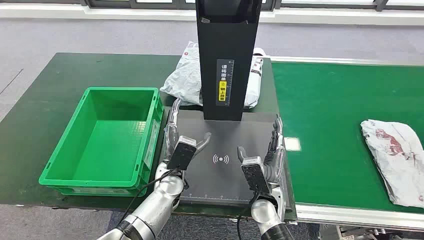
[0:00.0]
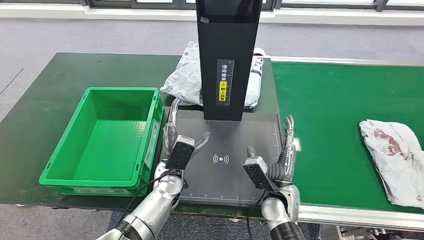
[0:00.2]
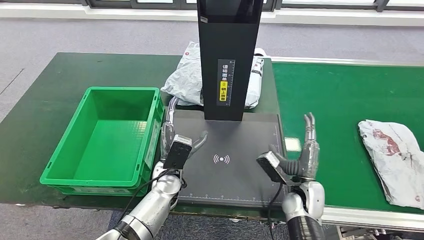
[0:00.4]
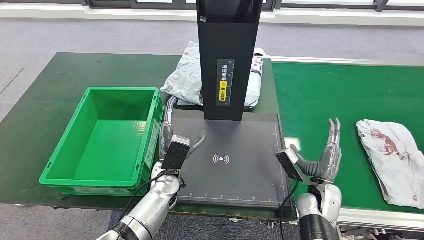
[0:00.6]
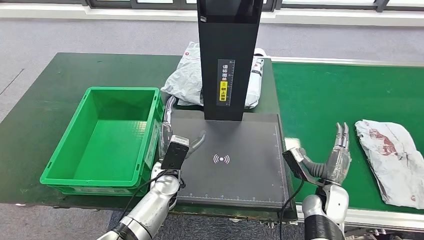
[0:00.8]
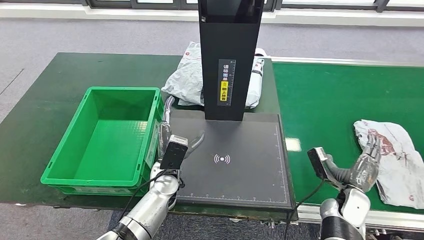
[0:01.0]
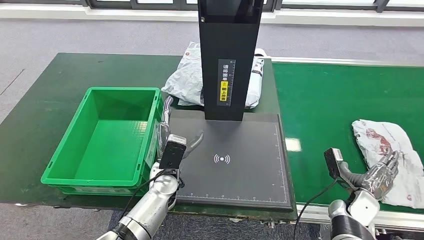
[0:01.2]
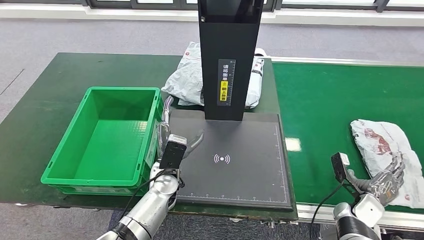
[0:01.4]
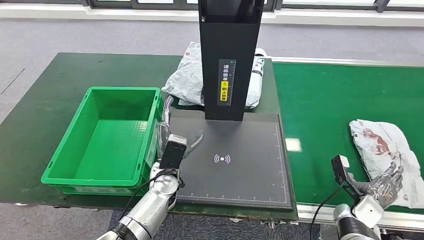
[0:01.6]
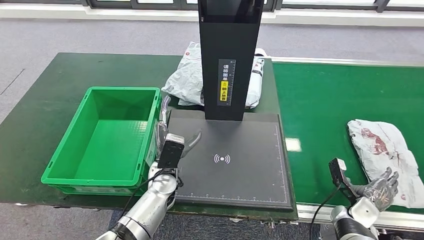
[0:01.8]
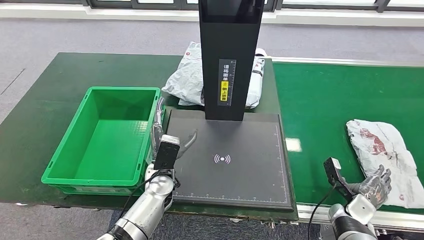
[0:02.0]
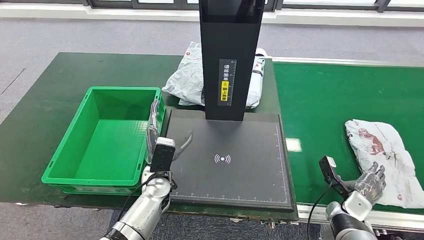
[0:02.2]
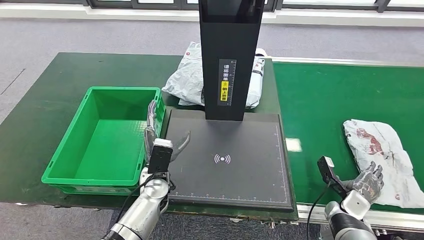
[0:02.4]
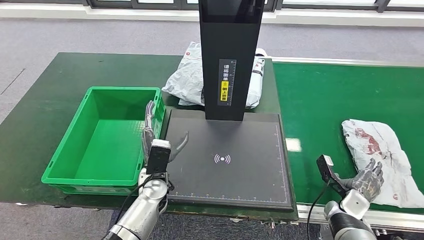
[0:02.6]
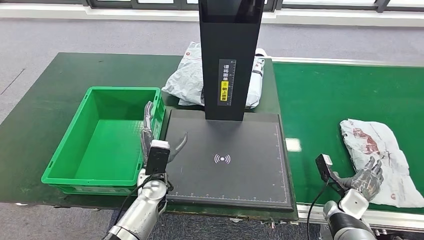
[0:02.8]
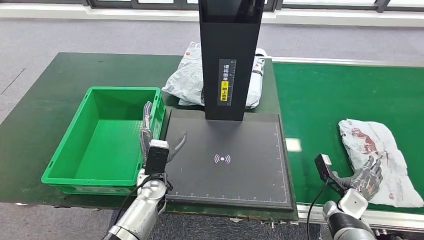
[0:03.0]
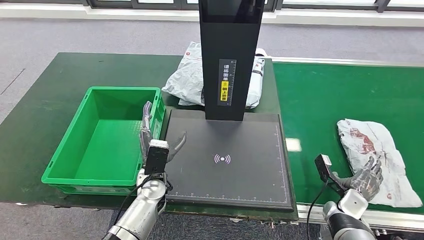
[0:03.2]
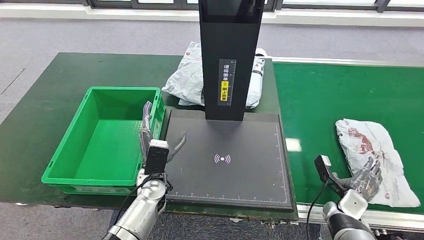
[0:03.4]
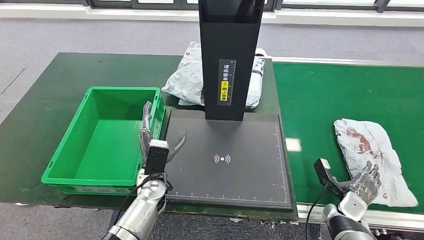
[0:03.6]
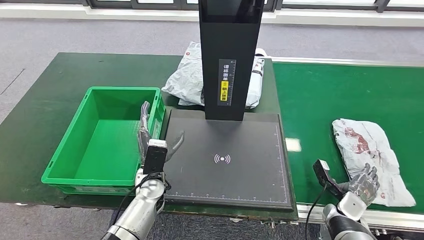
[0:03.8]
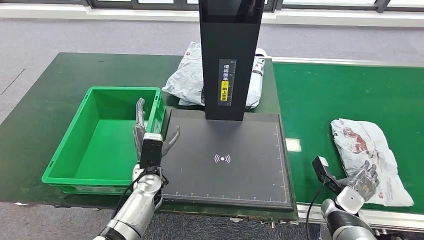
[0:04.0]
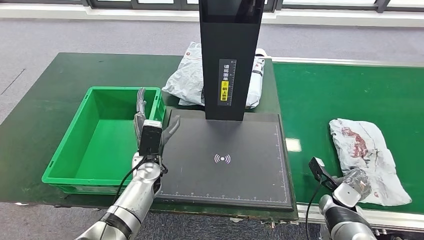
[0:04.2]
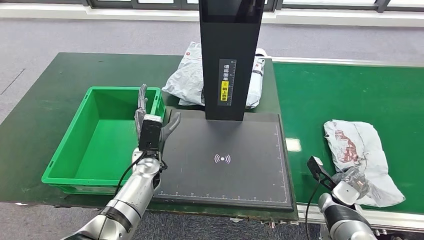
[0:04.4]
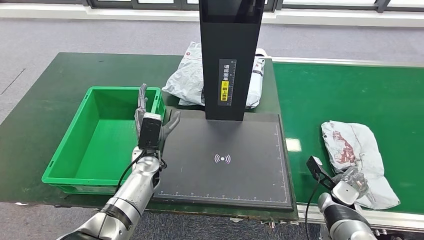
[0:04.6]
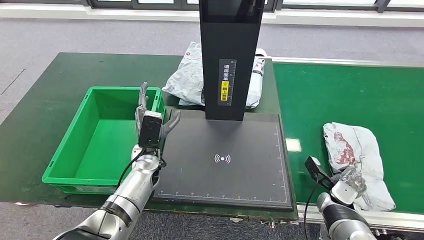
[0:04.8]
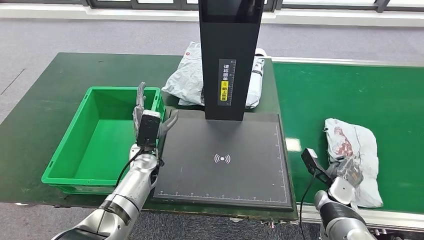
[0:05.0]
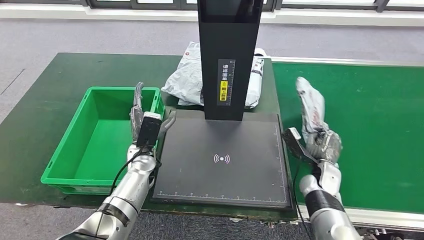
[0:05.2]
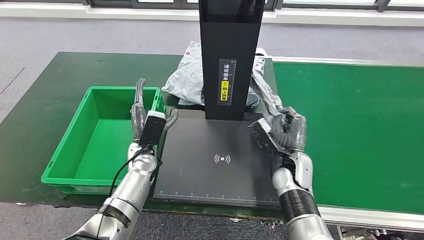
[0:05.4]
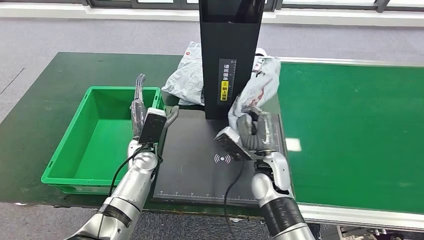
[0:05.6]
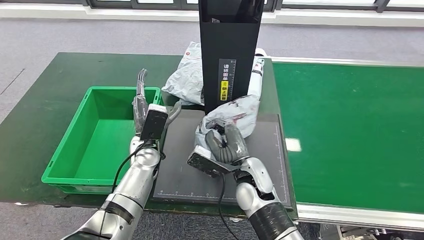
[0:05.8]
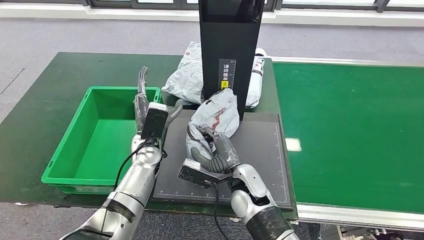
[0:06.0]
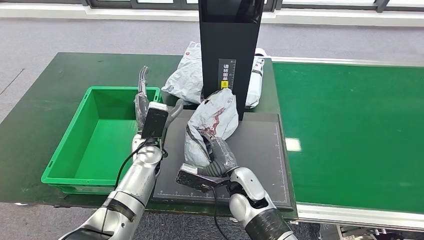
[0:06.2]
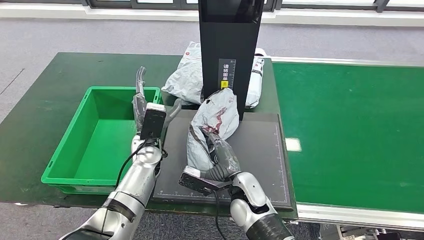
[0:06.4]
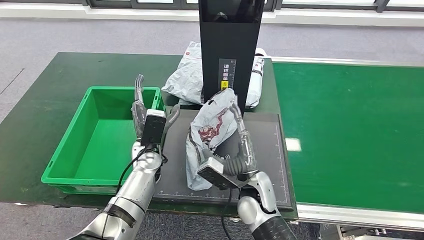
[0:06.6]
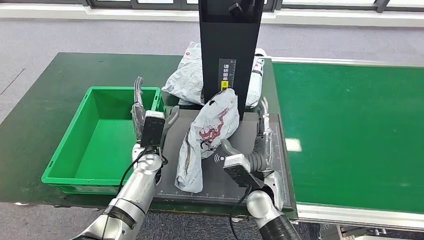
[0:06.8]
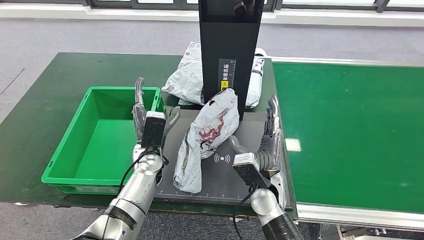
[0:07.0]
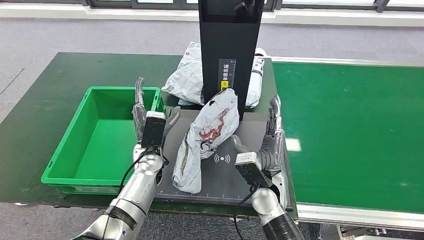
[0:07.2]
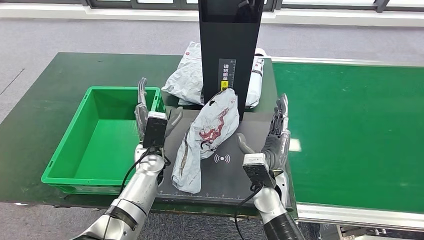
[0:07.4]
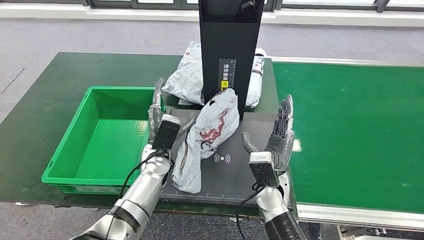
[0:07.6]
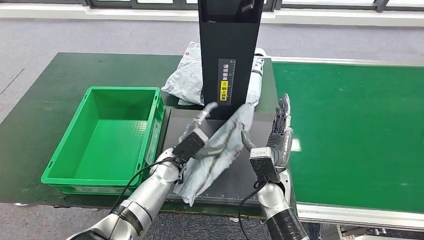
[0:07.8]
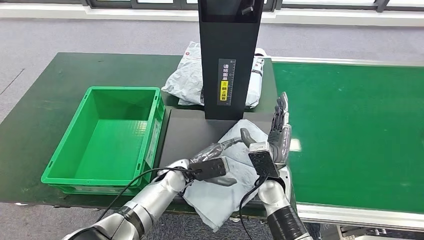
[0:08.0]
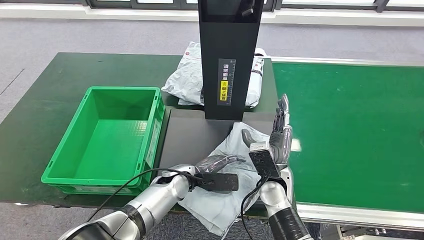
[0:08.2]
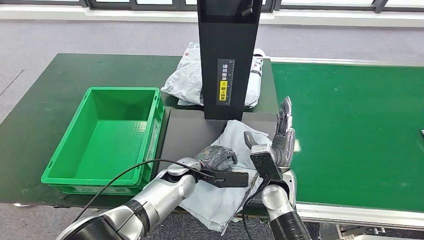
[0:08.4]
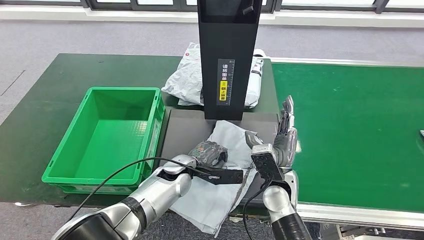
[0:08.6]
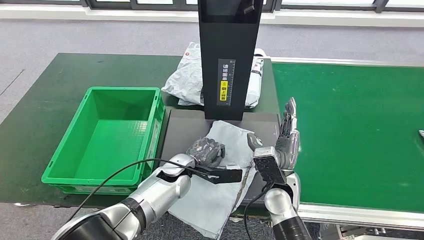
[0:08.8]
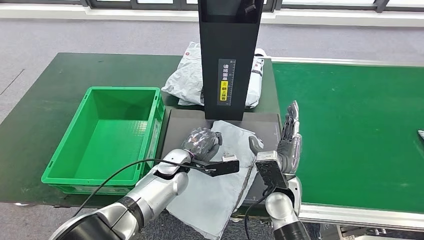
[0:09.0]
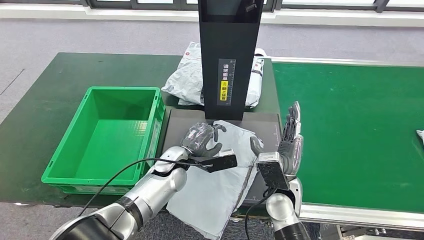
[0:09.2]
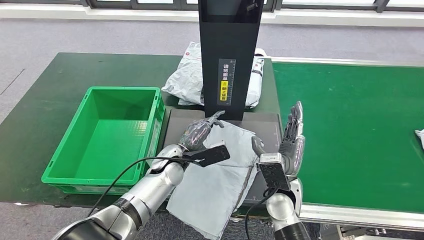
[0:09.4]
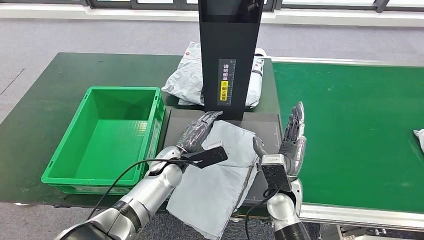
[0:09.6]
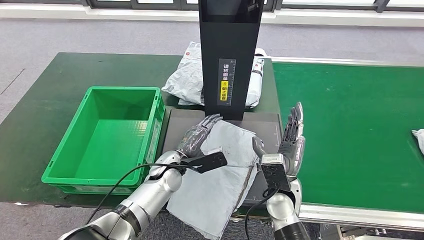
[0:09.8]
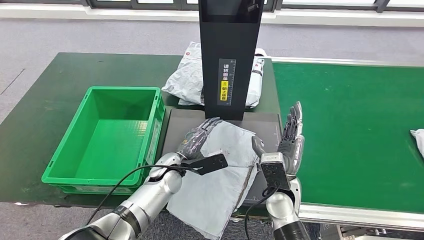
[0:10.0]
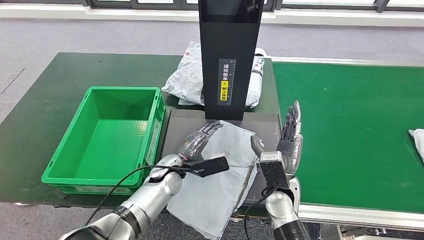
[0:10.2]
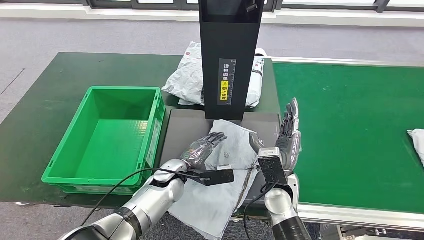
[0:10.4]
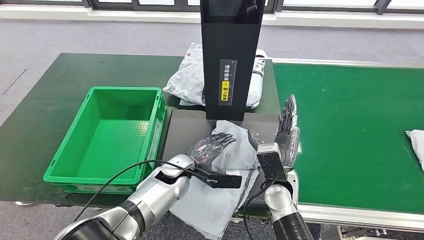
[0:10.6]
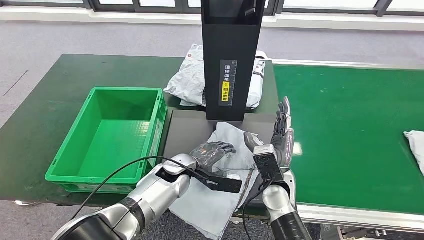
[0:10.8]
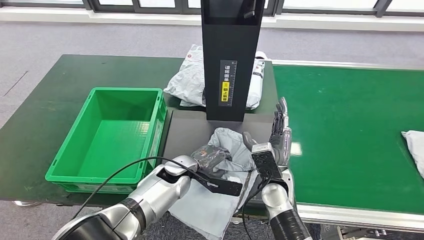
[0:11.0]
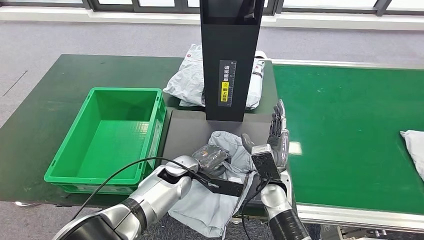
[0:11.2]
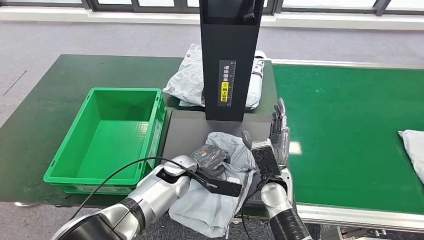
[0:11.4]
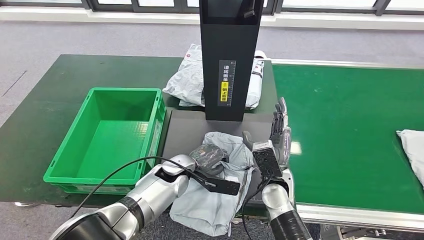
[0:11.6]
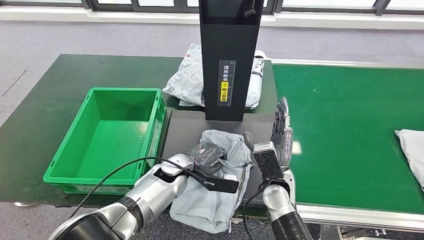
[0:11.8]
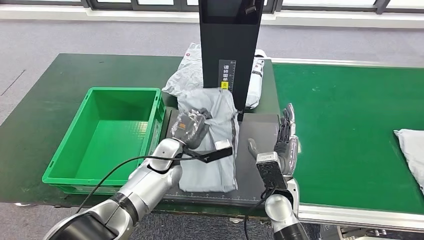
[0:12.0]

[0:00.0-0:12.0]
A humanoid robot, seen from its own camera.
Step, 0:00.0 to 0:05.6: Take the parcel off the conveyor belt.
Step, 0:05.8 to 0:07.6: Place the parcel onto the inbound machine.
0:01.6 to 0:03.0: There are only small adjustments of the hands.
0:03.0 to 0:04.4: The left hand goes approximately 5 cm forward.
0:04.4 to 0:06.0: The right hand is displaced to the left by roughly 30 cm.
0:06.0 to 0:07.6: The right hand shifts about 5 cm to the right.

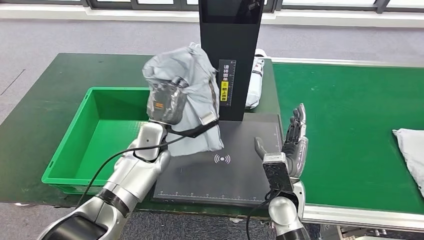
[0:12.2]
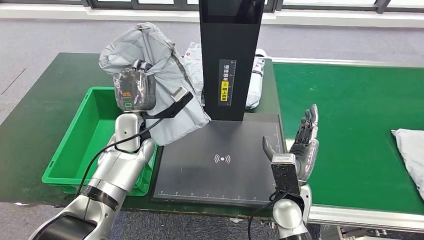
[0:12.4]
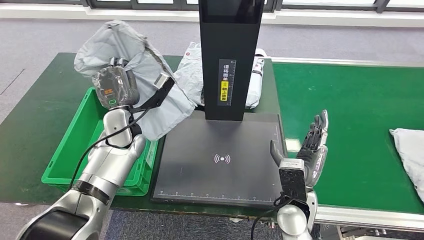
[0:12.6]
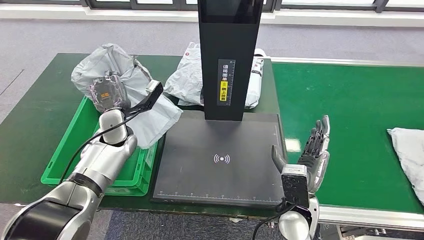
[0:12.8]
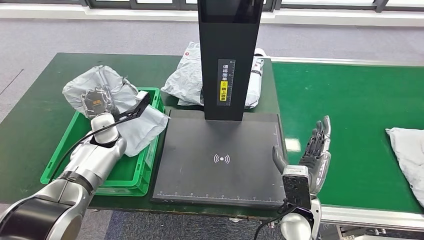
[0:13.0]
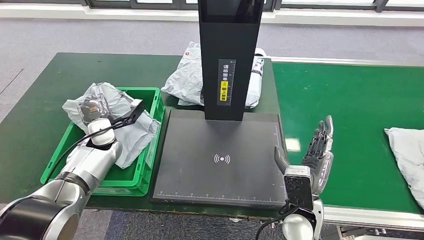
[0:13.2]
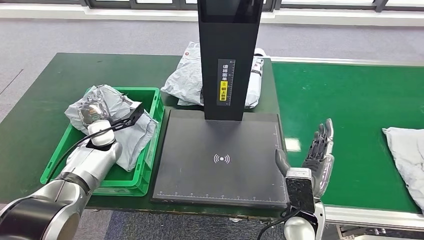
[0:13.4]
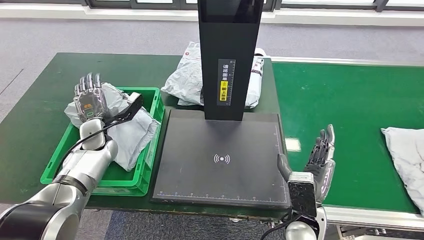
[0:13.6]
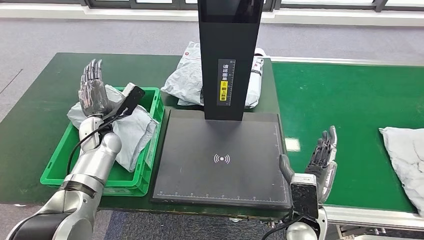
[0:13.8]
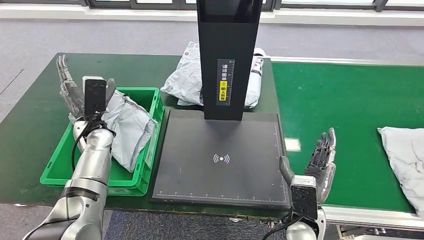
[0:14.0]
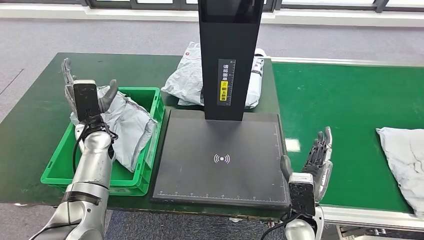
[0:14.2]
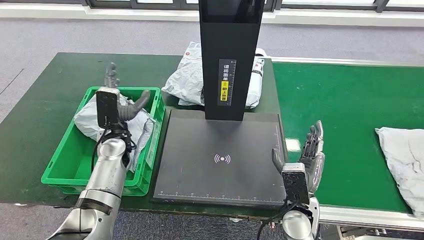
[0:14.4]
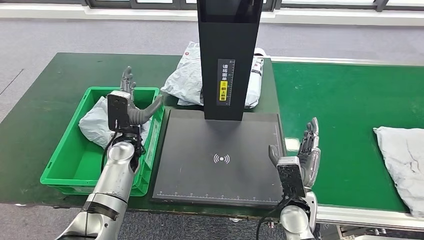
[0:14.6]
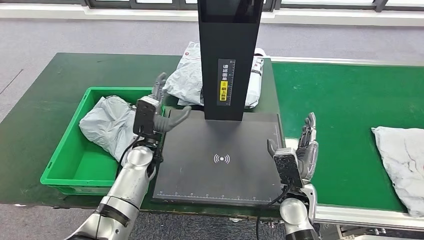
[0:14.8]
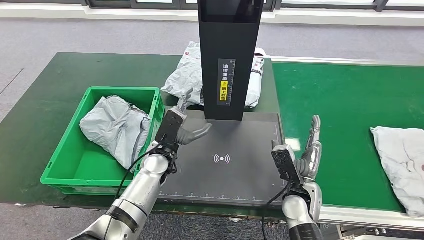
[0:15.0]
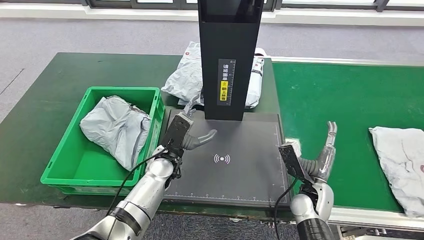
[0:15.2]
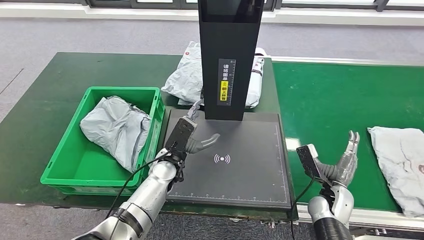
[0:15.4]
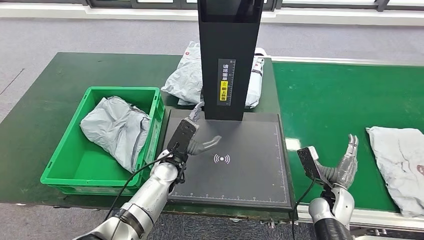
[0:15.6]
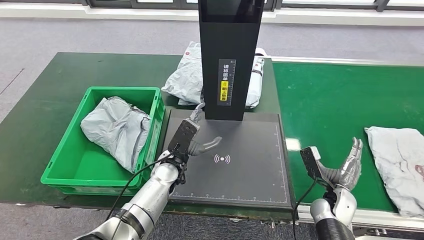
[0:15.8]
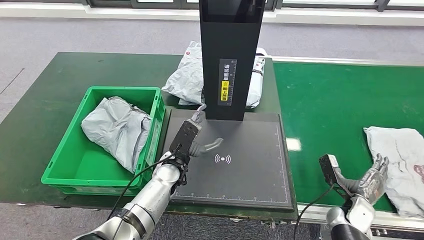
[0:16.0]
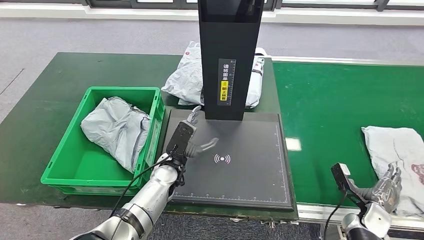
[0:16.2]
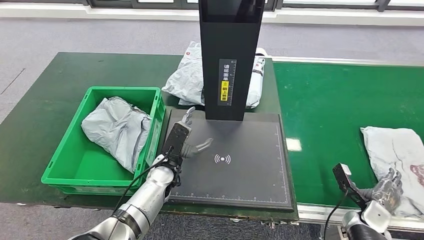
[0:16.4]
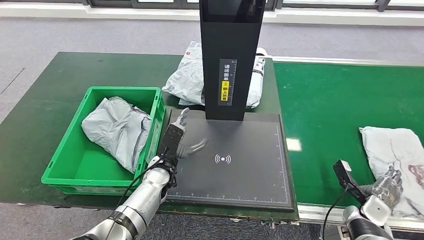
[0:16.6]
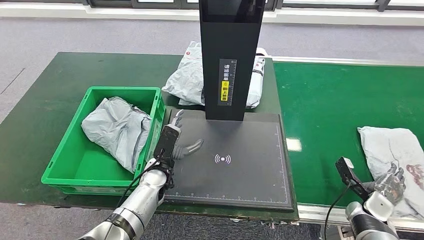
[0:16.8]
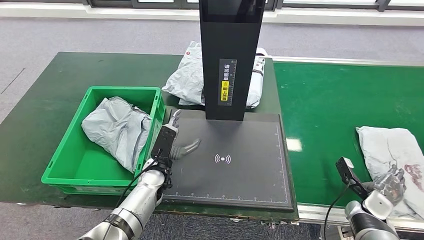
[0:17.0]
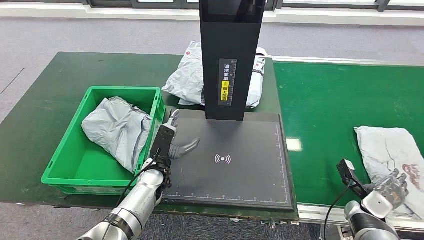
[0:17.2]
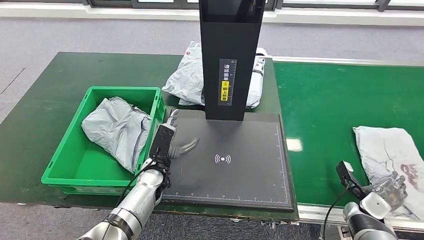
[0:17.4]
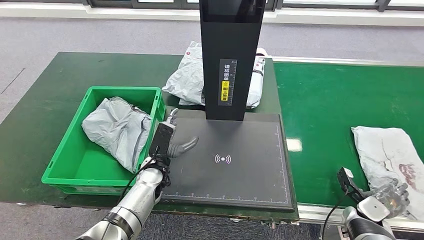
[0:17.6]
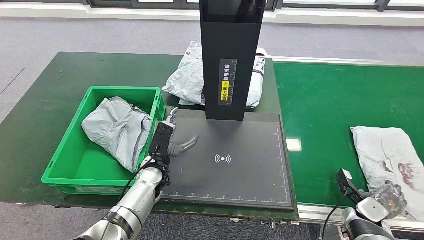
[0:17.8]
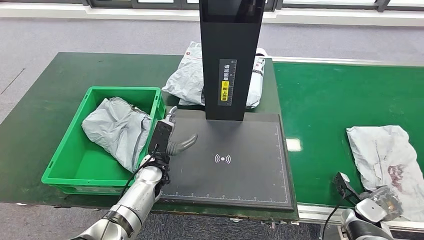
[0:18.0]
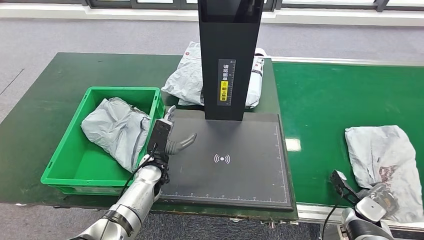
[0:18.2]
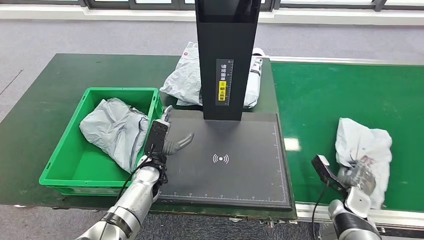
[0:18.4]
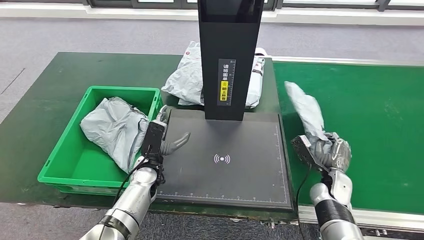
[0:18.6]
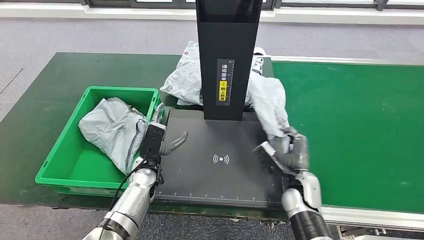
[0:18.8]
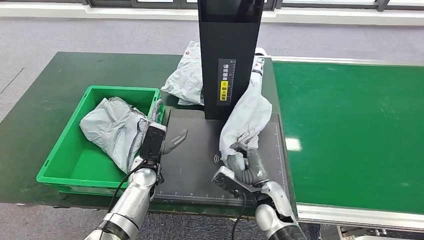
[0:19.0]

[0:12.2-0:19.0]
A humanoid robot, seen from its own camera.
Step, 0:13.0 to 0:14.4: Put the parcel inside the courier box.
0:15.0 to 0:16.2: The right hand goes about 20 cm to the right.
